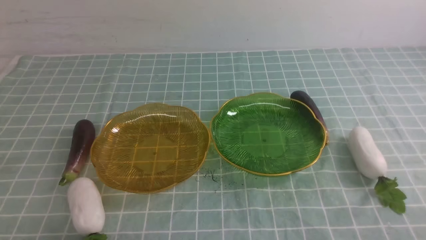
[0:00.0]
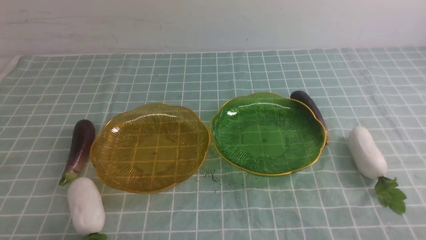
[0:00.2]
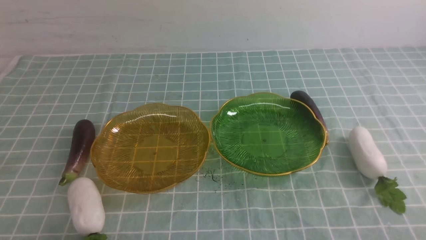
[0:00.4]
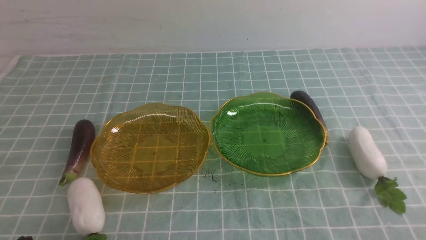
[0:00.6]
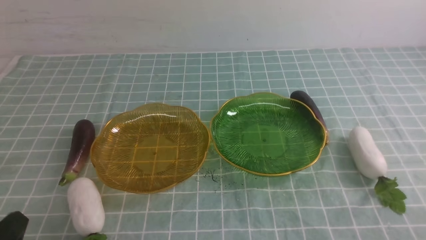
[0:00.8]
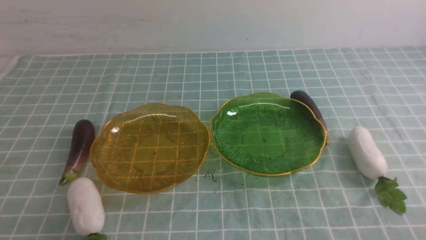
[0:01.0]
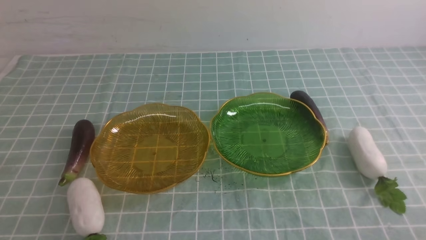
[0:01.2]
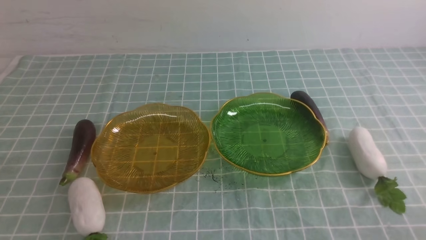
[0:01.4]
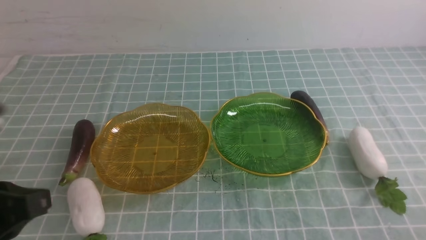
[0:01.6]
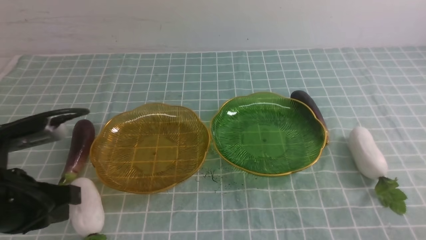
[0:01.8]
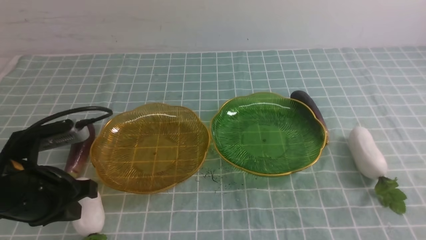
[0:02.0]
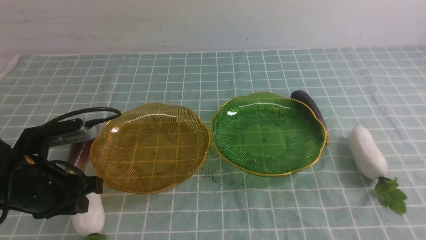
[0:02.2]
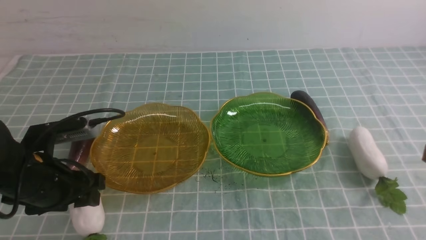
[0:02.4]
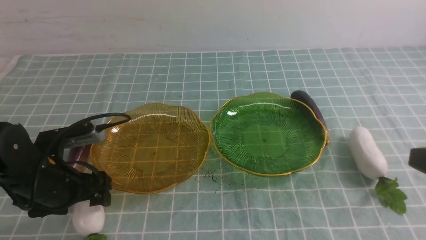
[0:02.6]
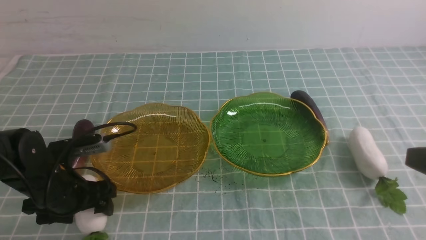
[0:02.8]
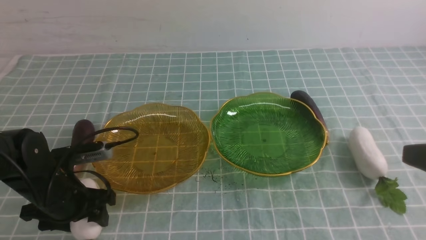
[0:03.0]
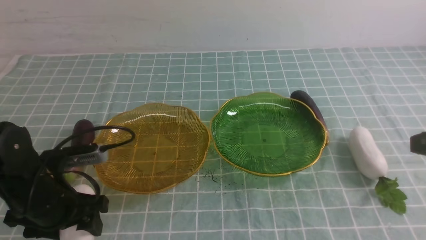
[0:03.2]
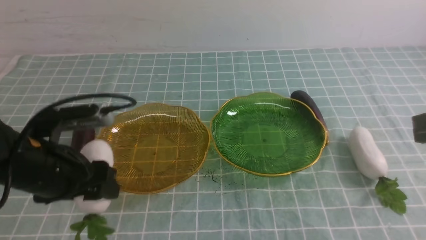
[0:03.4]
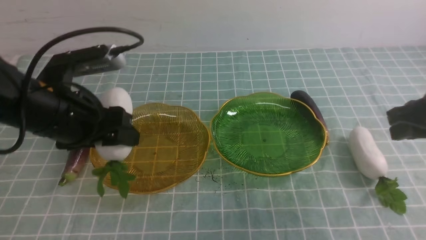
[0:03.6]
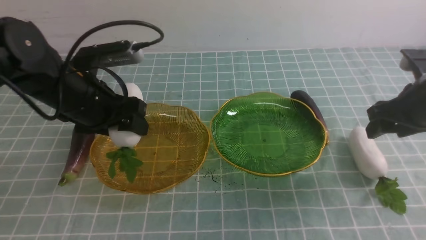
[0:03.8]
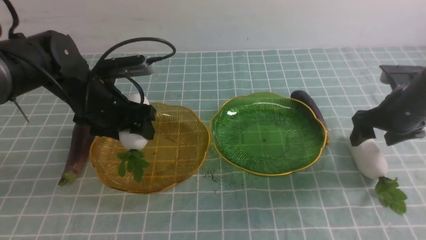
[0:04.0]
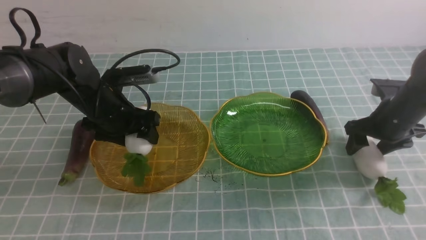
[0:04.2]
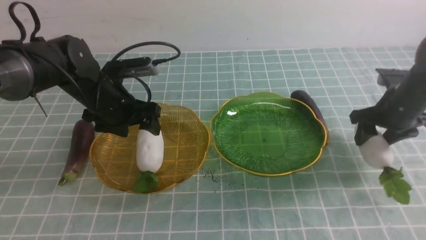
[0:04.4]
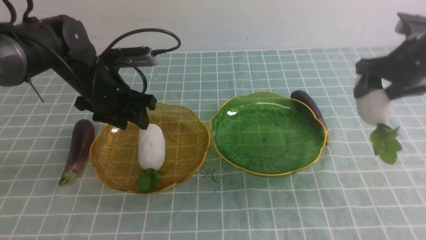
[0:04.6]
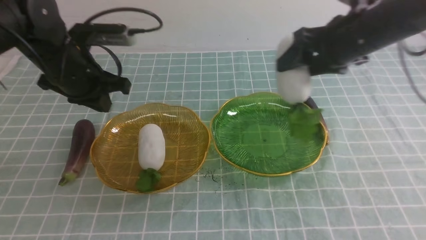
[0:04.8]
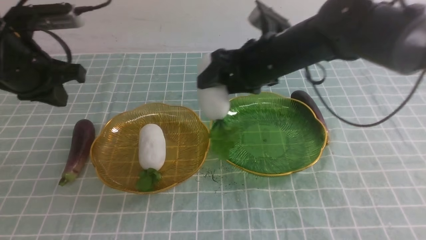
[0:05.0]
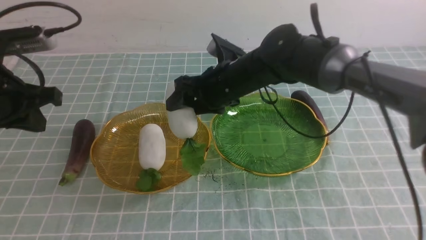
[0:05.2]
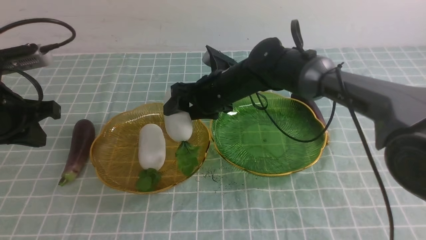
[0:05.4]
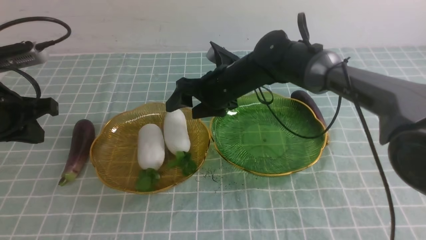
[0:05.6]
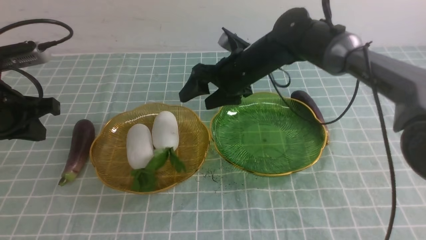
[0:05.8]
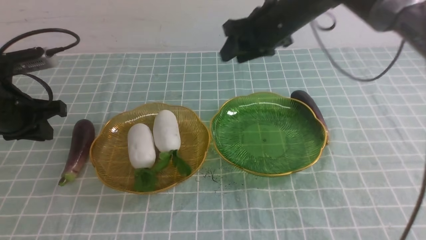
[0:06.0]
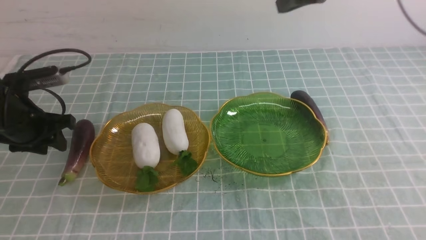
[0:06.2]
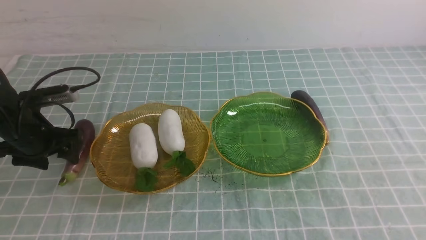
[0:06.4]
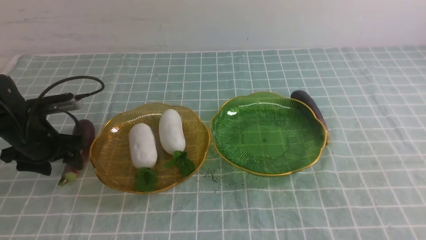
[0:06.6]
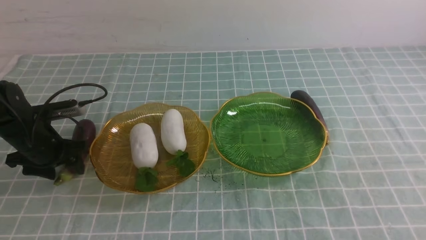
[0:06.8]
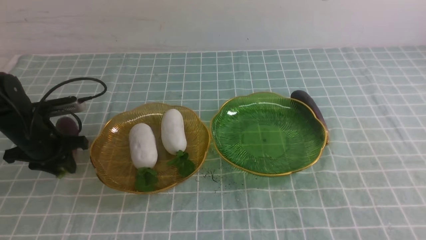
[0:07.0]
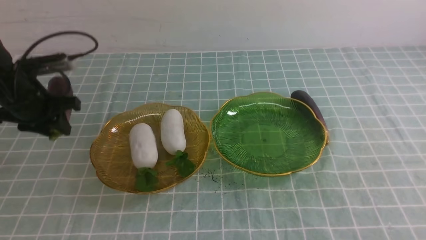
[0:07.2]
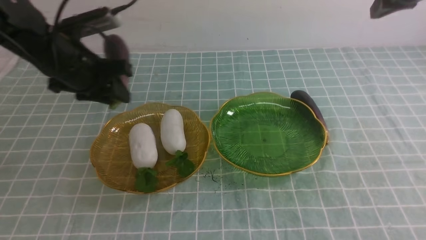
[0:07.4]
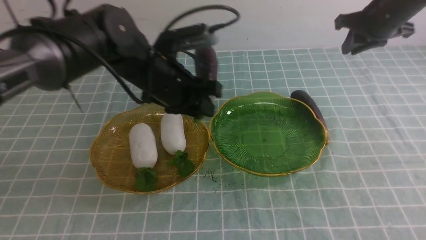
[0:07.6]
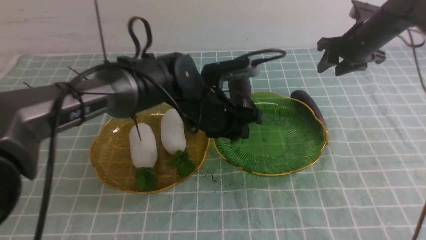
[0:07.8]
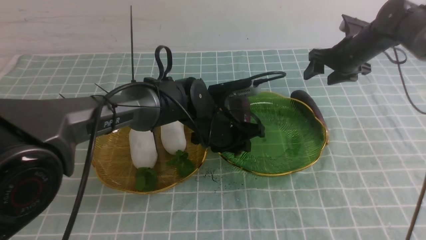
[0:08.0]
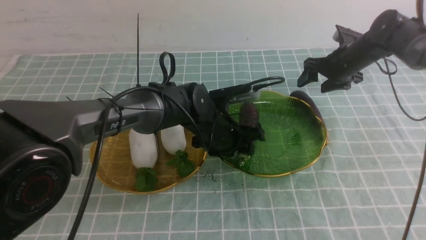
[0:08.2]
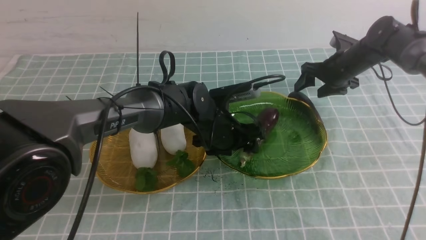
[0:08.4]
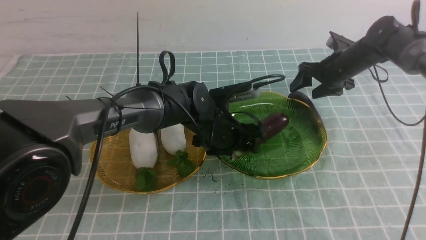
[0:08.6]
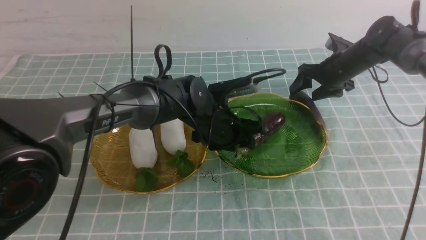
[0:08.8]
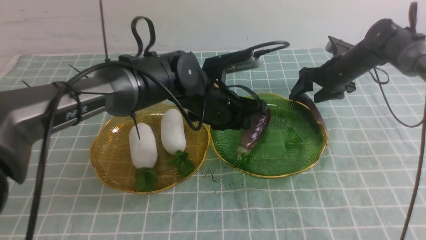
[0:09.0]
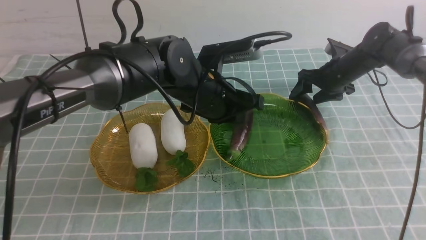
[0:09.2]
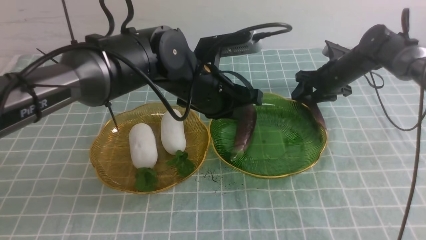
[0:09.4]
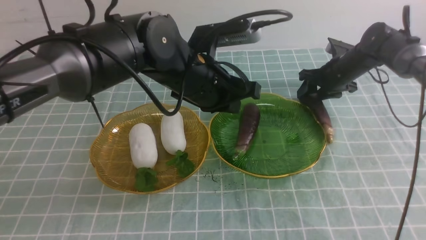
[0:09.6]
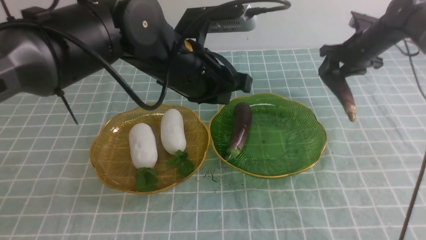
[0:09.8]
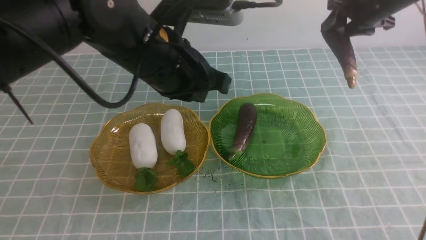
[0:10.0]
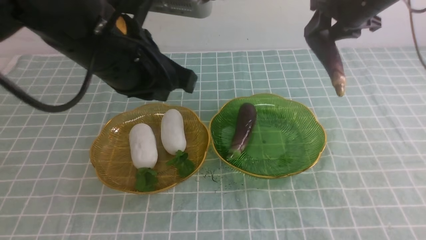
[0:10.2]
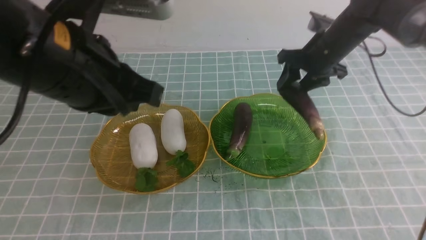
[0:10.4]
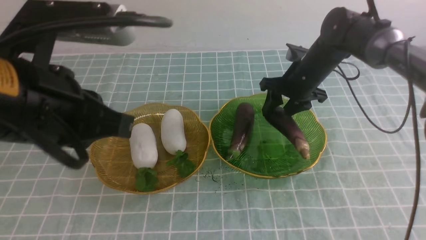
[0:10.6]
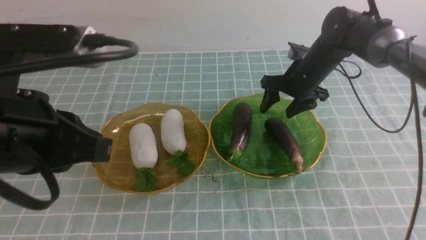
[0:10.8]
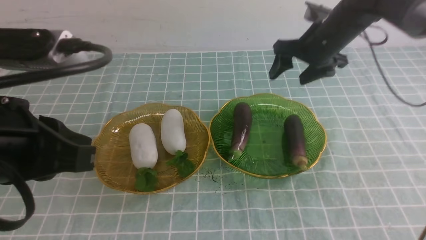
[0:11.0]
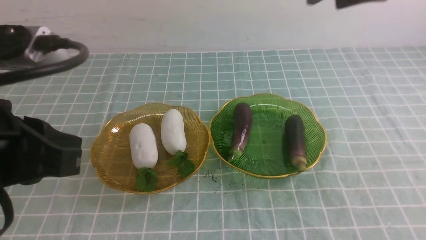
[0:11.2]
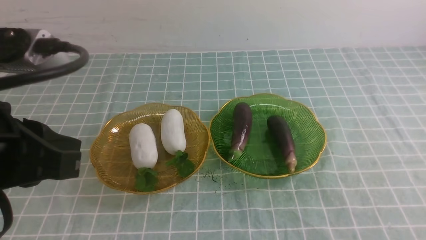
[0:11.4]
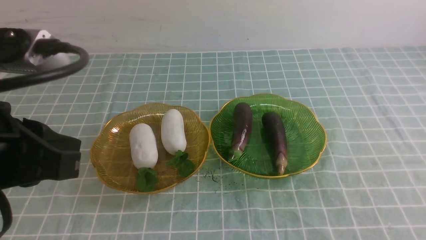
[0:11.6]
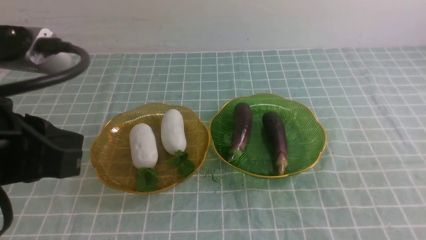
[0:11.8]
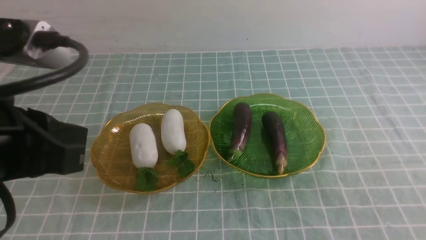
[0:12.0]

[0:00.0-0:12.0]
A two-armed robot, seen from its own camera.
Step, 0:00.0 to 0:04.2: use the left arm to grab a radish and put it into the left plate.
Step, 0:04.4 to 0:05.4: use the right arm to grab an eggplant and put it into the right plate.
Step, 0:05.8 to 0:09.4: use the left arm to grab an eggplant and put it into the right plate.
Step, 0:09.6 to 0:10.6: use the right arm to grab an eggplant and put it into the right plate.
0:00.0 to 0:01.6: The left gripper moves upward and forward, roughly 15 cm.
0:01.6 to 0:03.0: The left gripper travels downward and forward by about 20 cm, and opens up.
0:03.0 to 0:04.4: The left gripper is displaced forward and upward by approximately 15 cm, while the right gripper heads forward, covering roughly 25 cm, and opens.
0:04.4 to 0:06.0: The right gripper travels upward and to the left by about 20 cm, and closes up; the left gripper heads to the left and backward, covering about 15 cm, and closes up.
0:06.0 to 0:07.6: The left gripper travels to the right by approximately 25 cm, and opens, then closes once more; the right gripper heads to the right, downward and forward, covering some 20 cm.
0:07.6 to 0:09.0: The right gripper is displaced downward by roughly 15 cm, and opens, while the left gripper shifts roughly 5 cm to the right, reaches roughly 10 cm downward, then returns, and opens, then closes once more.
0:09.0 to 0:10.4: The right gripper heads upward, to the left and backward, covering roughly 10 cm; the left gripper goes roughly 25 cm upward, backward and to the left.
0:10.4 to 0:12.0: The right gripper shifts some 50 cm backward, and closes up. The left gripper heads backward and to the left, covering roughly 10 cm.

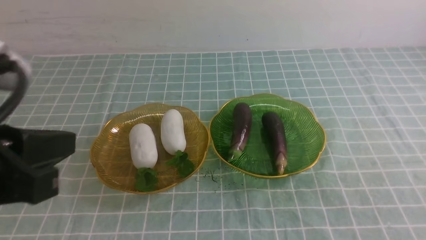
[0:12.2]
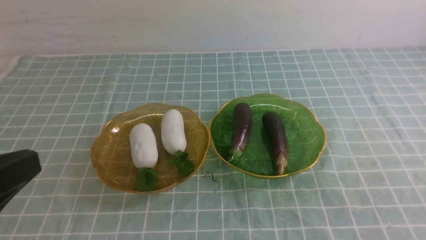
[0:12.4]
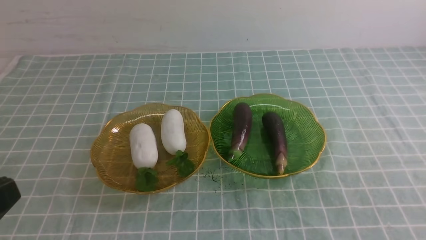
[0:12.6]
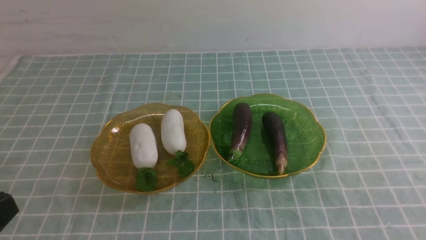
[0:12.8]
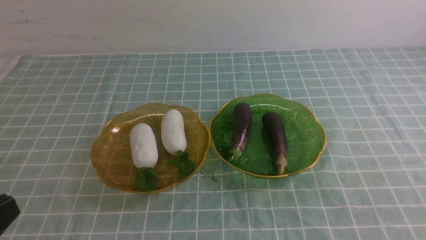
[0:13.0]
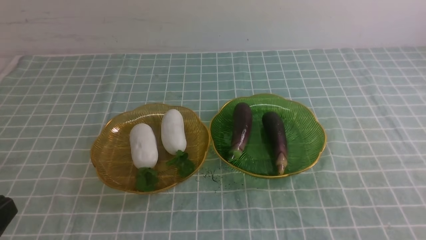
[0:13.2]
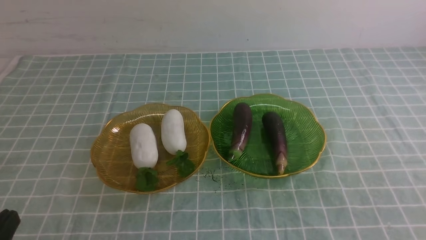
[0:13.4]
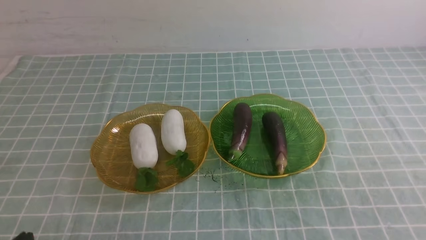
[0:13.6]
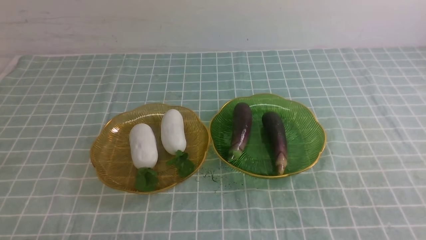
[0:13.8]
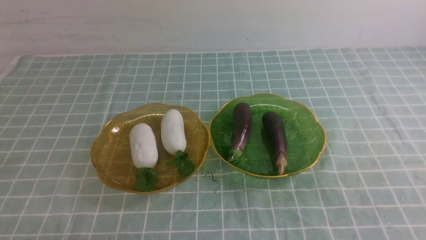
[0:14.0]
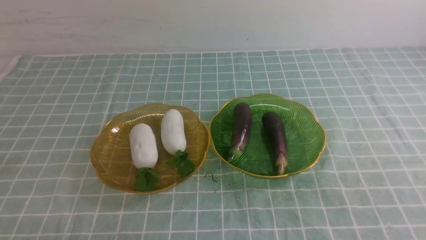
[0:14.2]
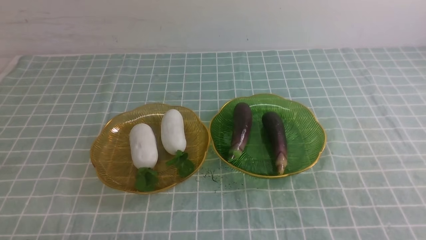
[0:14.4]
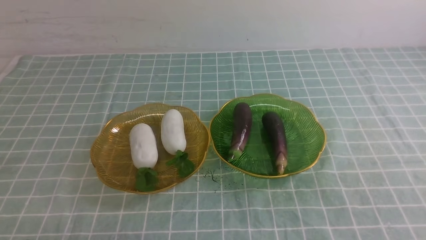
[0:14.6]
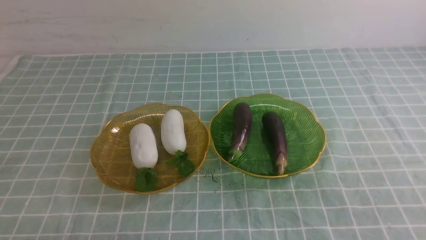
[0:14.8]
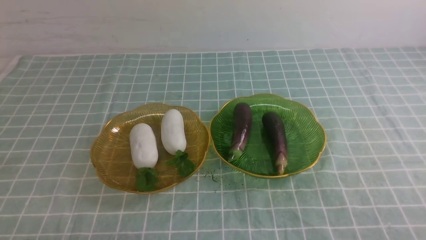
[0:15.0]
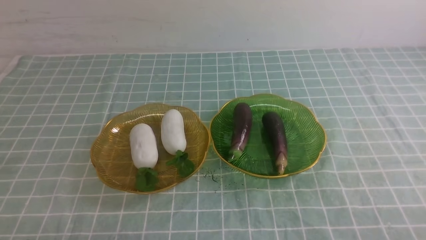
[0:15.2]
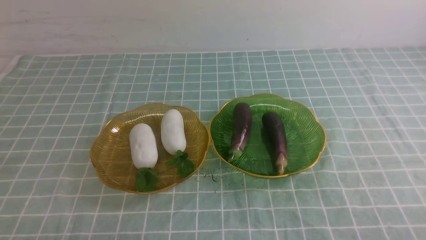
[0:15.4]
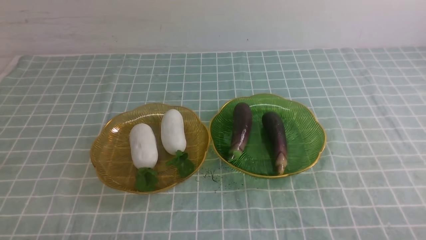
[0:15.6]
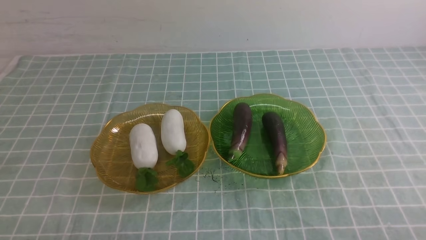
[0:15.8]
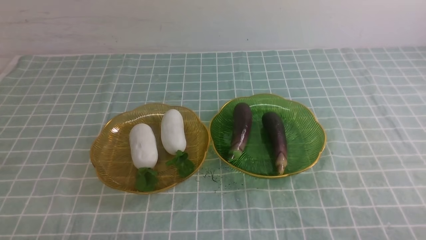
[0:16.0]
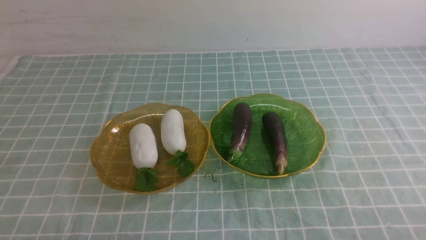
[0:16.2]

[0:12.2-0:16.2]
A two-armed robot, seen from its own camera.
0:12.2 to 0:13.6: The left gripper is displaced downward by approximately 20 cm.
